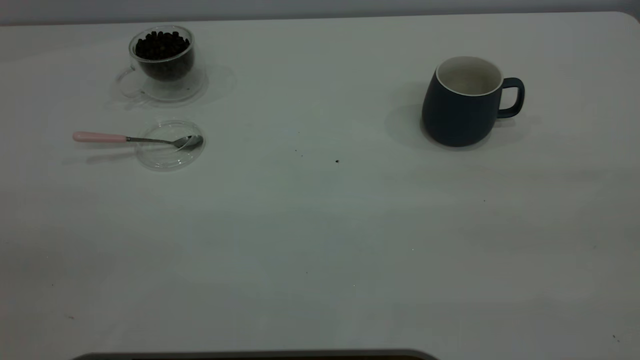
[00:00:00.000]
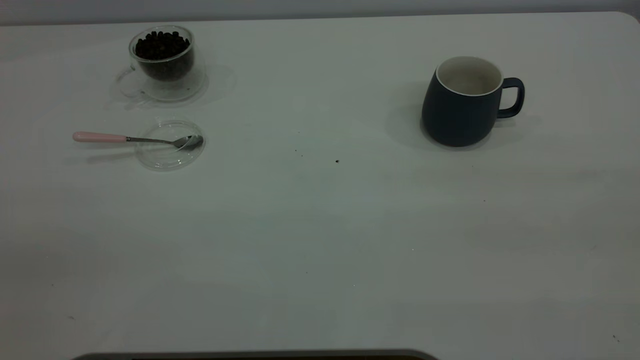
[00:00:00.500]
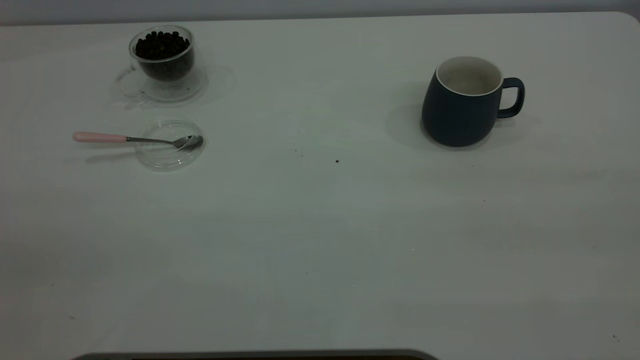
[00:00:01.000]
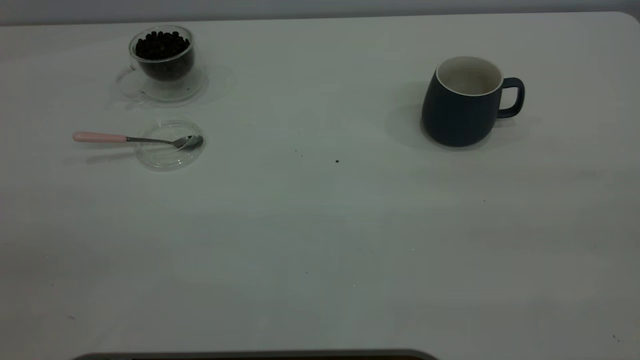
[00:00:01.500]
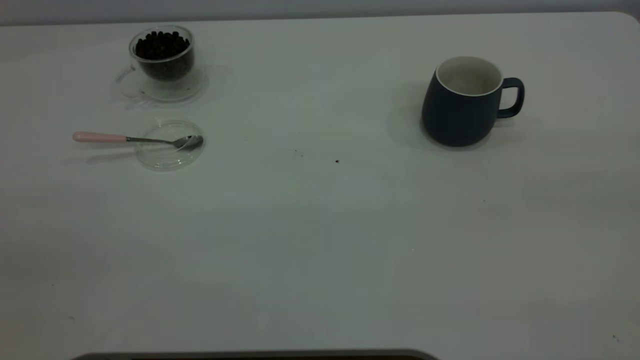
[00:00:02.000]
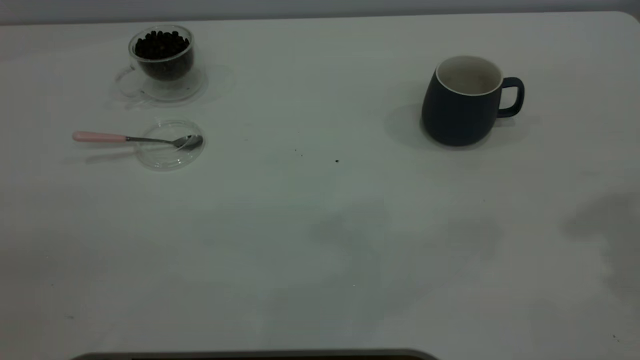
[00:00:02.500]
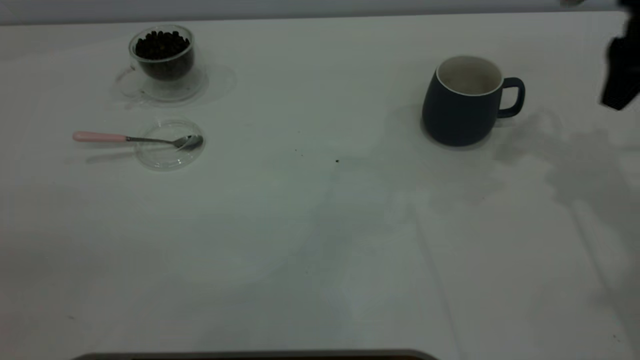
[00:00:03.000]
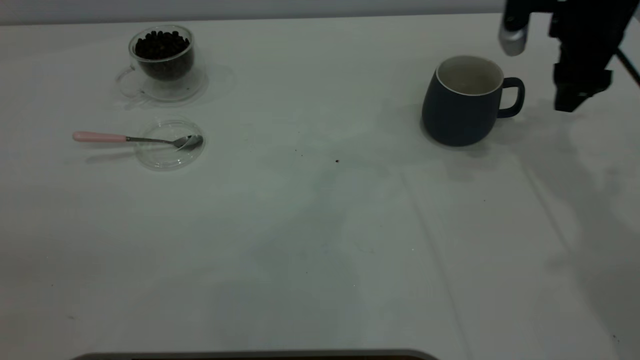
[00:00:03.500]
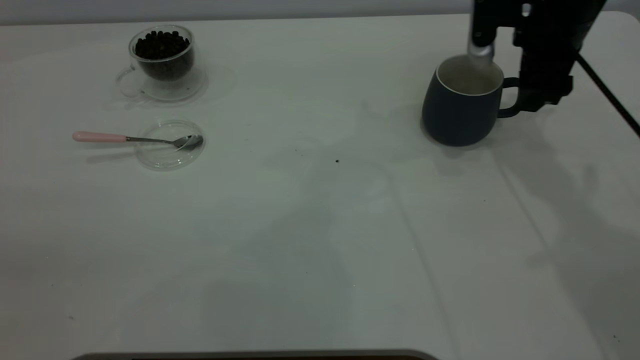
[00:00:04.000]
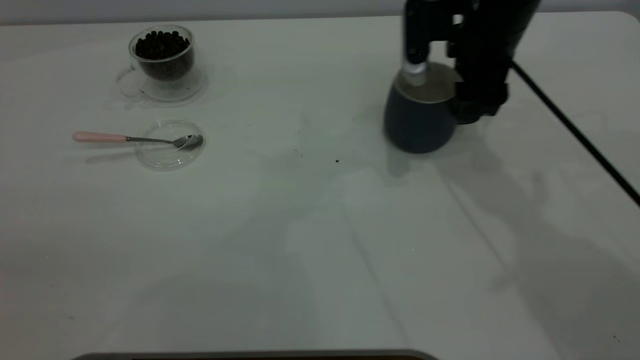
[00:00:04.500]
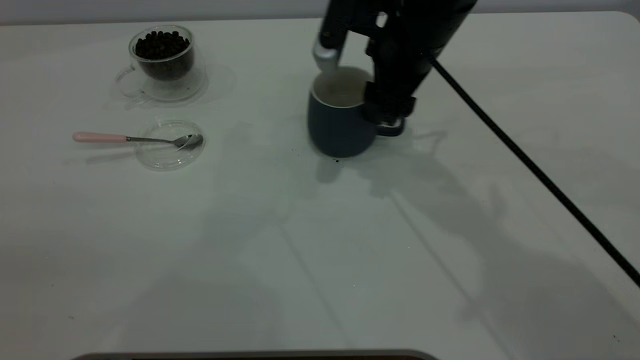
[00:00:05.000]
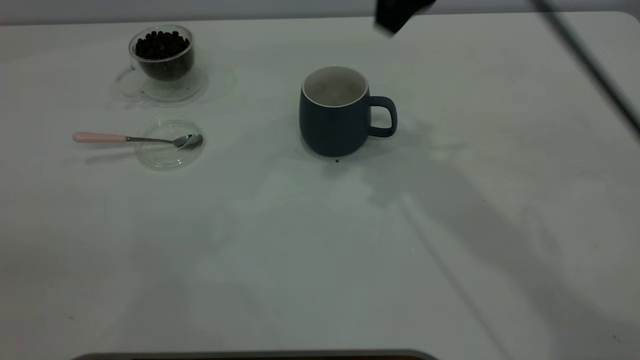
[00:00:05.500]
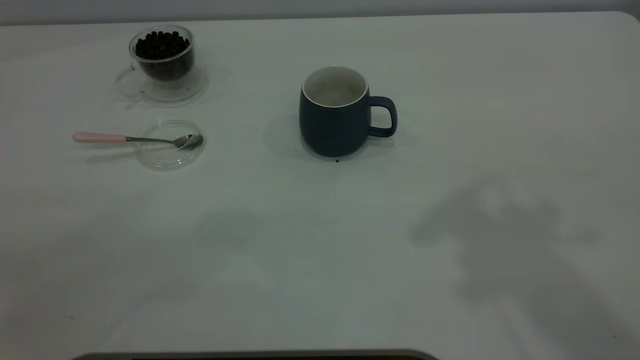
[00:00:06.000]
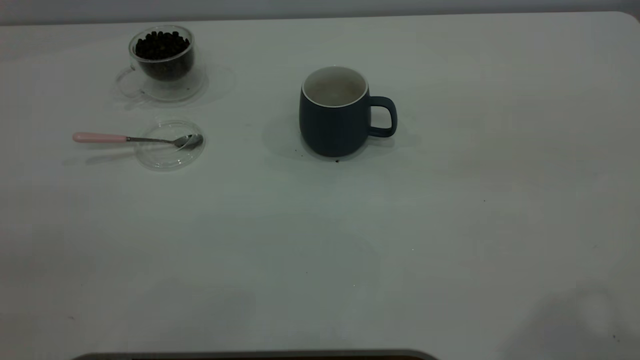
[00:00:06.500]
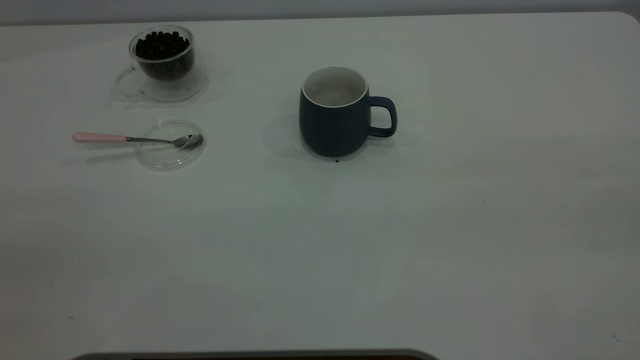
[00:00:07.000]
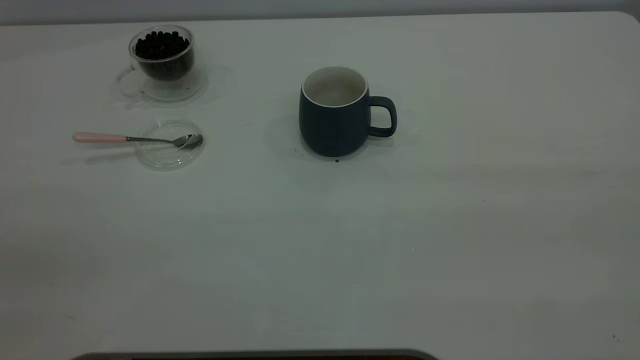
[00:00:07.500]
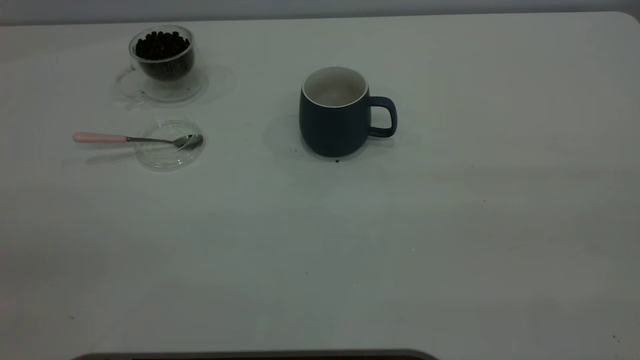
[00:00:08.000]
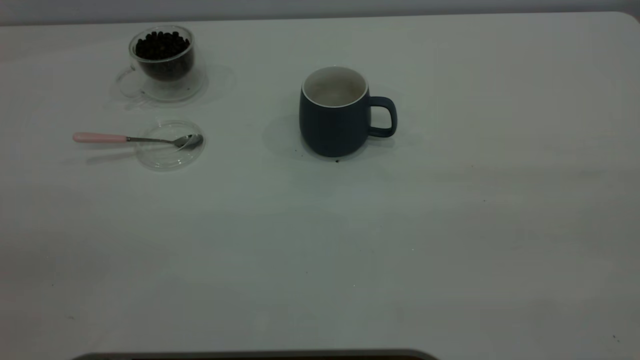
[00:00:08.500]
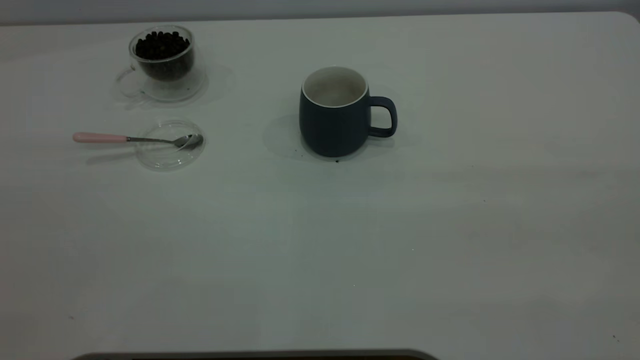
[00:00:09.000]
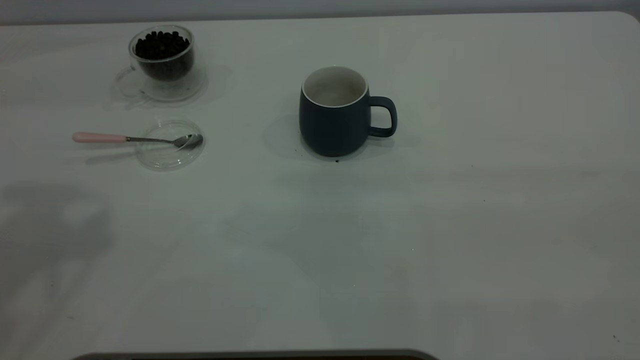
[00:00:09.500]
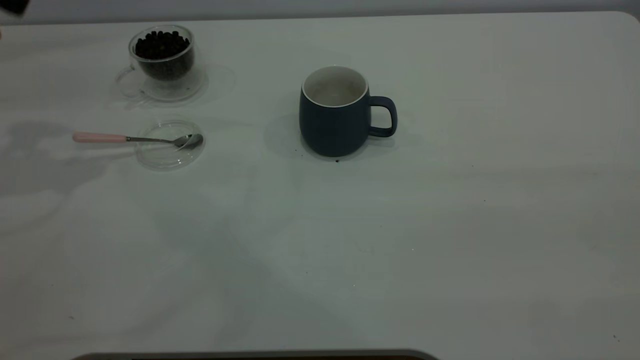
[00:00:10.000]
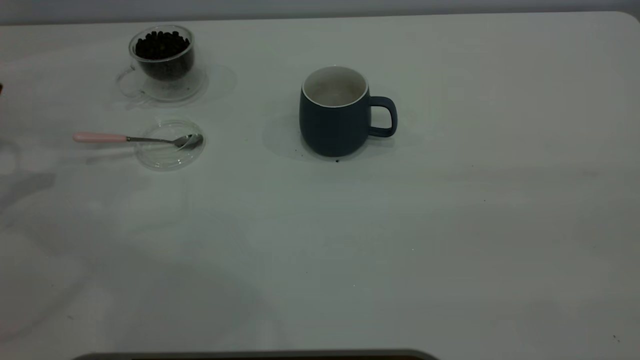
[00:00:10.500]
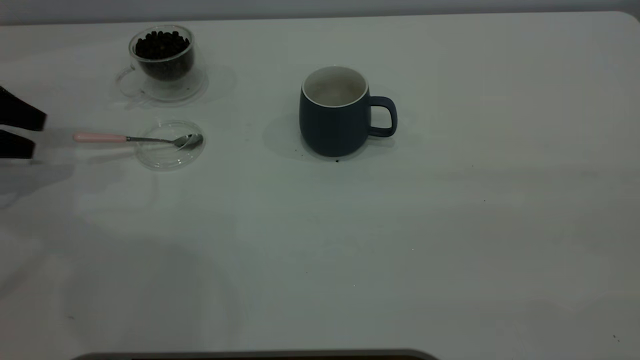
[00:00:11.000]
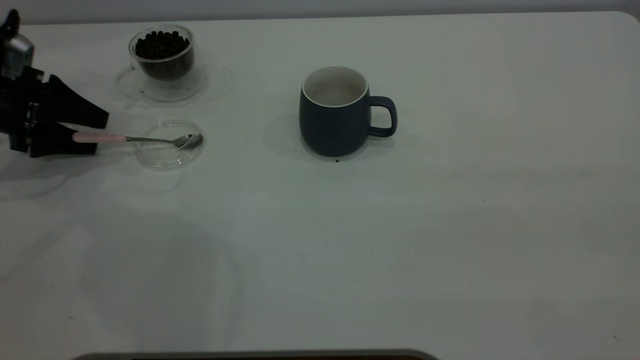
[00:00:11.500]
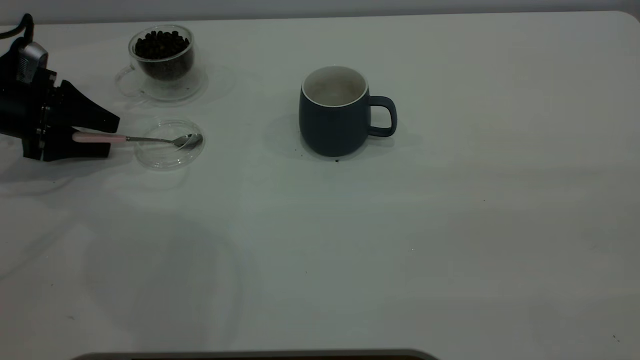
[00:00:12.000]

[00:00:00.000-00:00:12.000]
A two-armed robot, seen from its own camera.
Task of the whole recording: the right gripper place the grey cup in the center of the table, the left gripper take the pink spoon from the cup lid and scoop out the coffee beans from the coffee cup and put them into the grey cup, the left gripper put the spoon back into the cup lid.
Step, 00:00:00.000 to 00:00:05.000: Move the cup to the center of view.
00:00:02.000 to 00:00:04.000: The right gripper moves forward and downward, approximately 50 cm.
00:00:04.000 to 00:00:06.000: The right gripper is displaced upward and backward by about 35 cm.
00:00:10.000 to 00:00:12.000: The left gripper shifts roughly 20 cm downward.

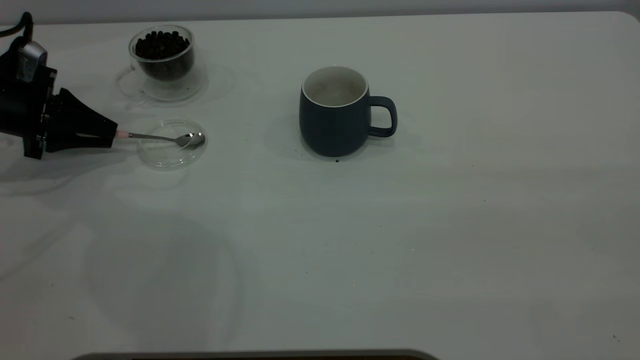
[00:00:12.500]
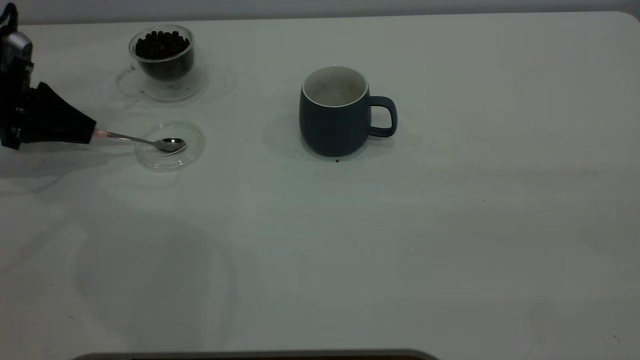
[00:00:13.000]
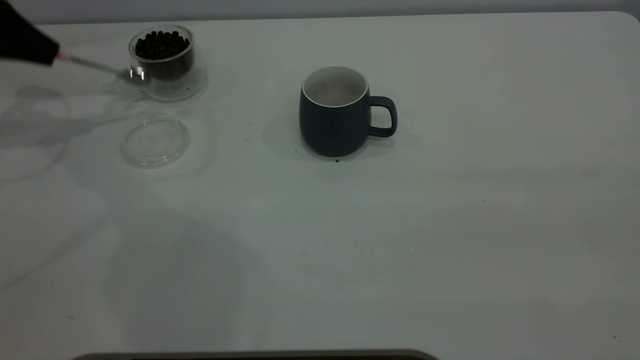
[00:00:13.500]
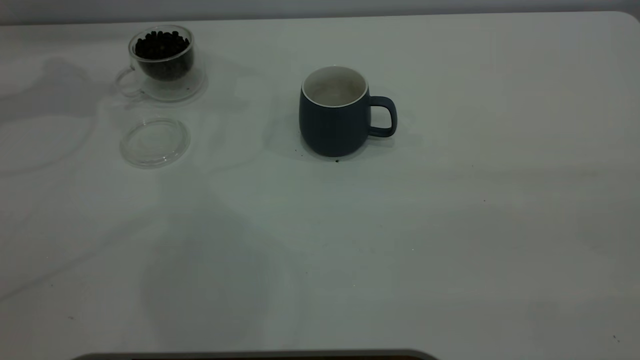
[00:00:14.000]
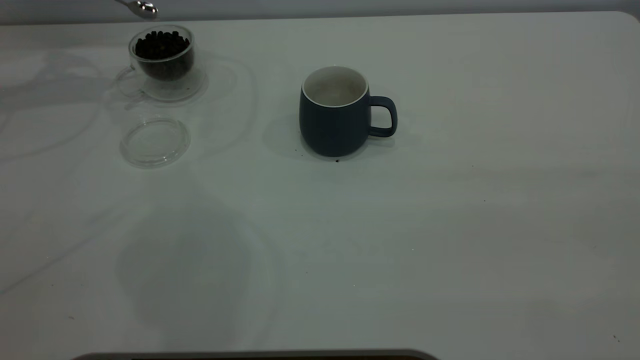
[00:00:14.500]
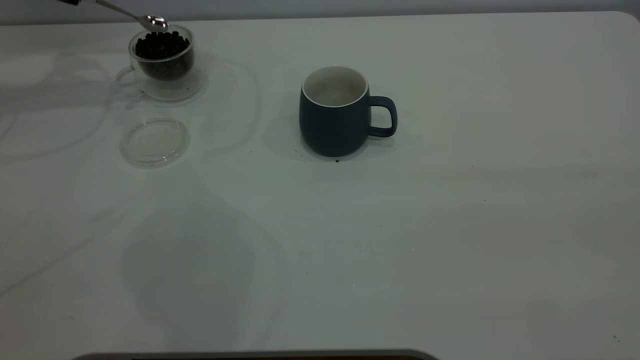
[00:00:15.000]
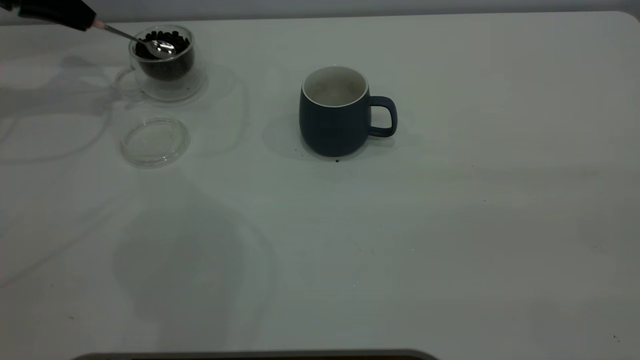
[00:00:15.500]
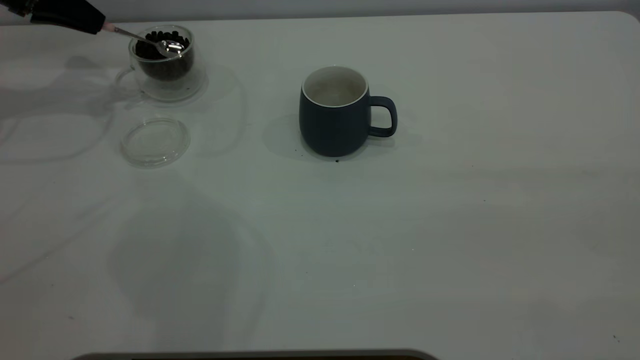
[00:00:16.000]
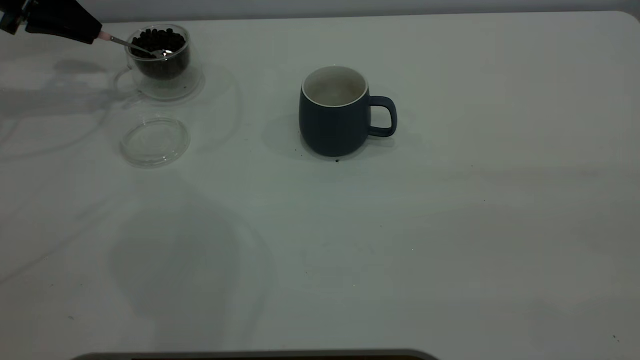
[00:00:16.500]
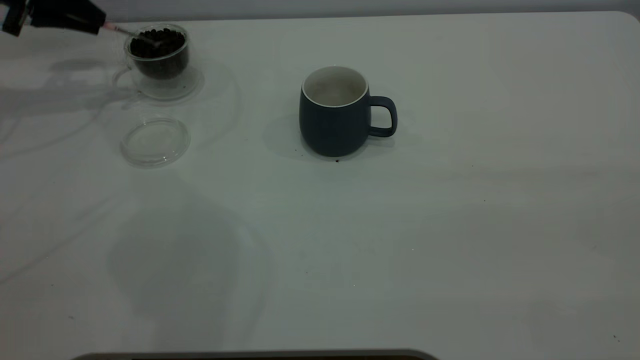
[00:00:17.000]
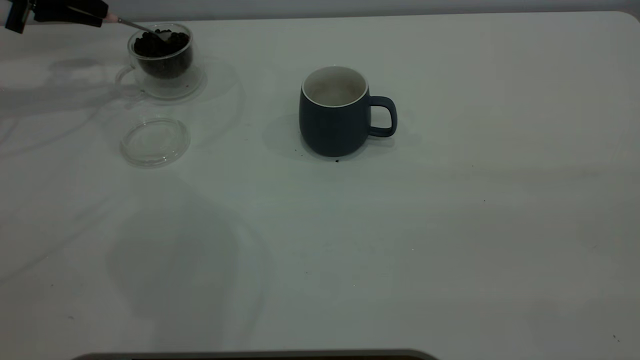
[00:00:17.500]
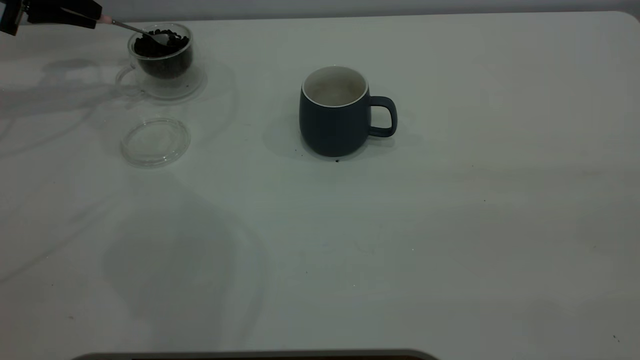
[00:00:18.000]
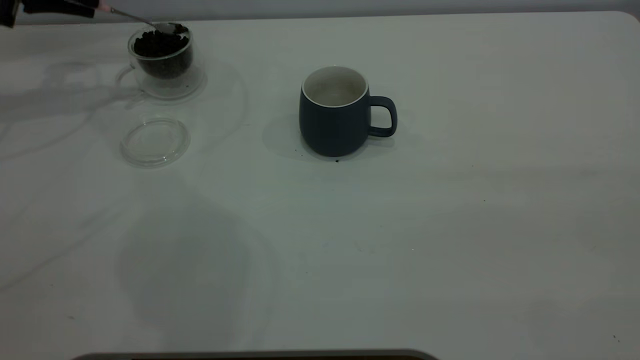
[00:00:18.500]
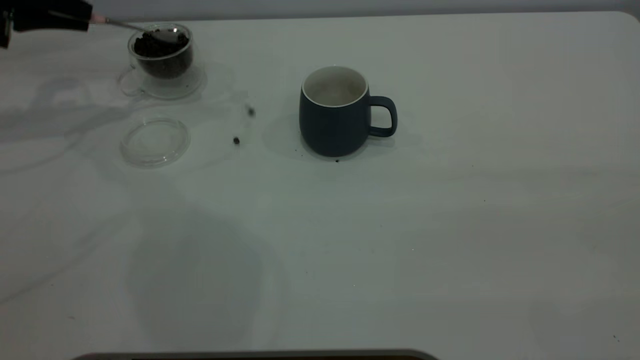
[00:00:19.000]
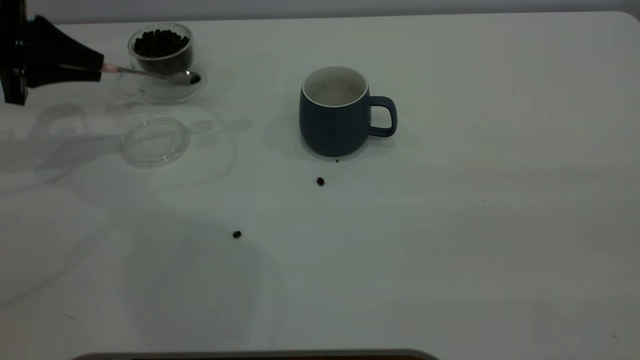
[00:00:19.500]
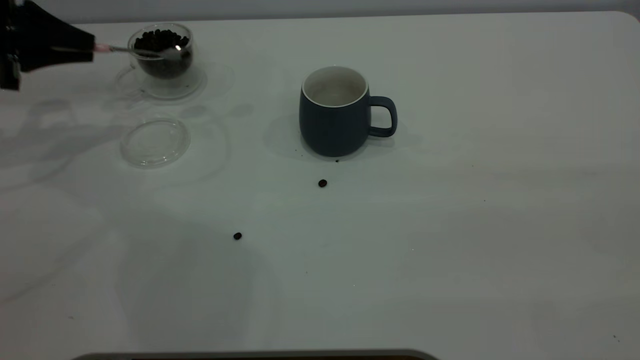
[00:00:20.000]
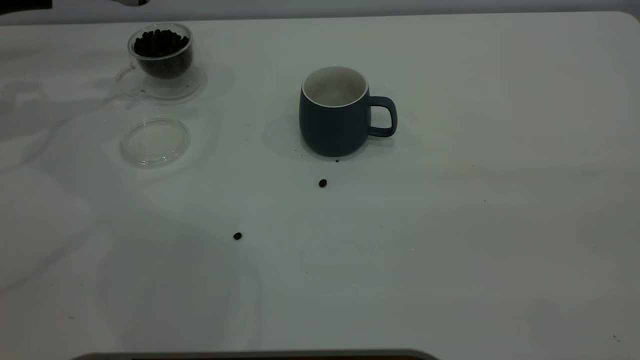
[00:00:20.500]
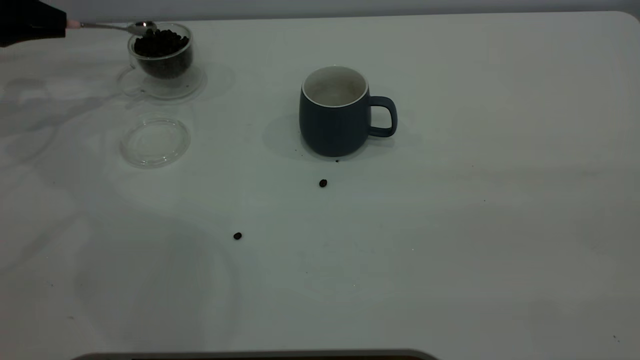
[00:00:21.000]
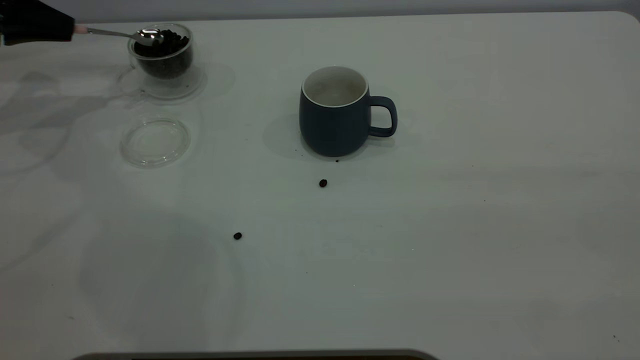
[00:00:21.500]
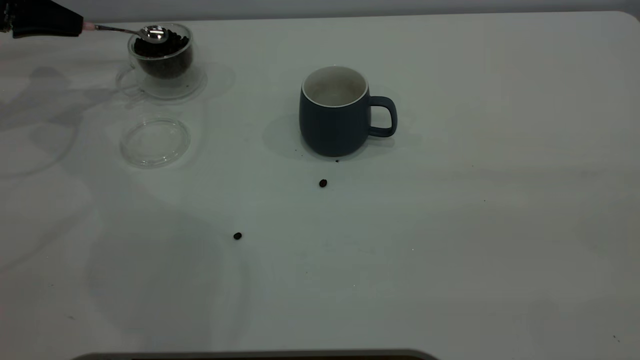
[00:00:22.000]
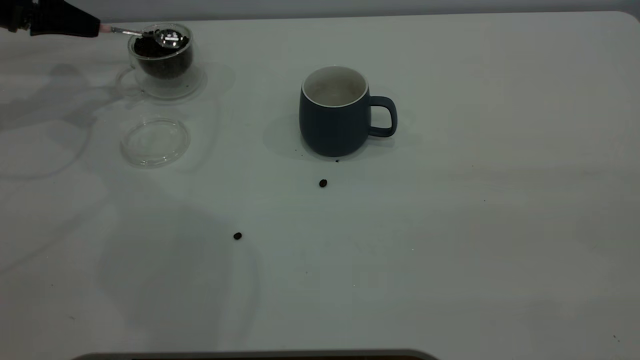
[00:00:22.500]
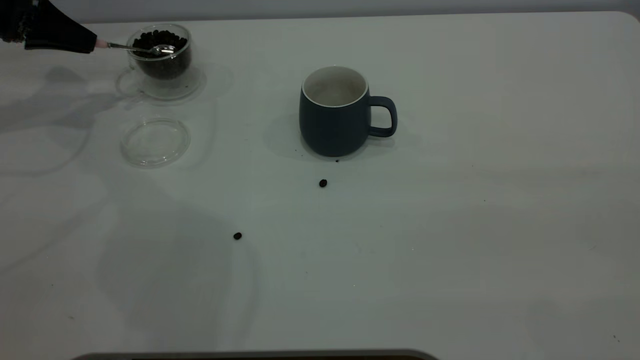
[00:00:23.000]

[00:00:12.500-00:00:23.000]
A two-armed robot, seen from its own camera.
Task of the whole recording: the right gripper place the grey cup in the center of the table, the left gripper take the pink spoon from the cup lid and scoop out the coffee beans from the coffee cup and put them into the grey cup, the left gripper put the spoon back into the cup lid.
00:00:12.500 to 00:00:14.500: The left gripper goes about 20 cm upward and forward.
00:00:14.500 to 00:00:16.500: The left gripper goes approximately 5 cm downward.
00:00:16.500 to 00:00:19.000: The left gripper travels backward by approximately 5 cm.
00:00:19.000 to 00:00:21.000: The left gripper changes place by about 5 cm.
